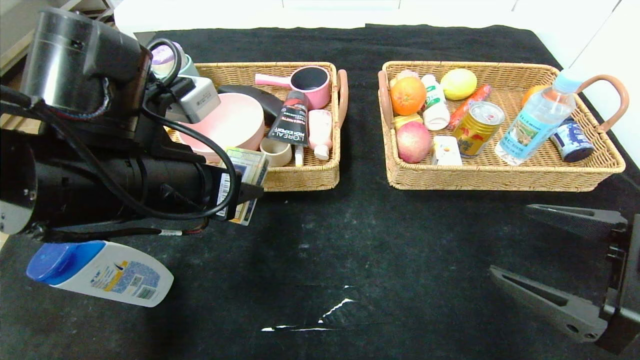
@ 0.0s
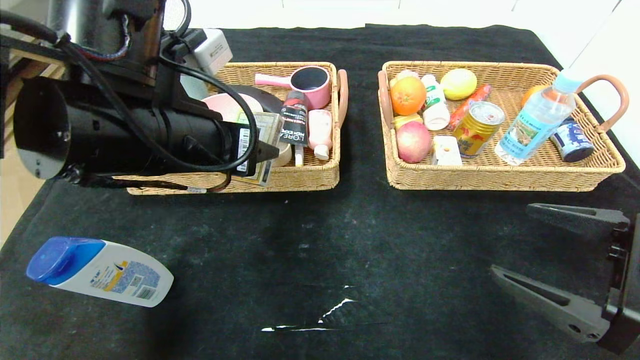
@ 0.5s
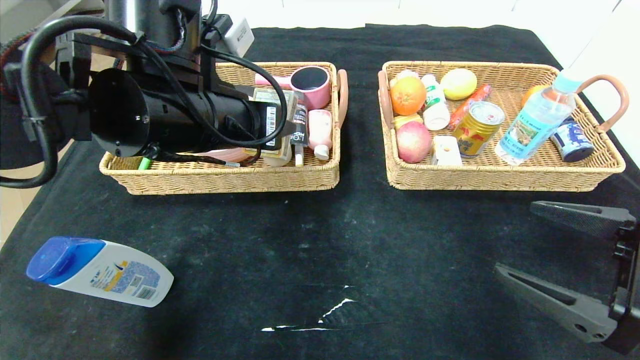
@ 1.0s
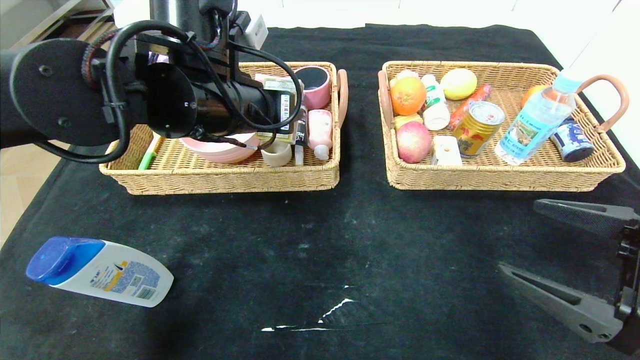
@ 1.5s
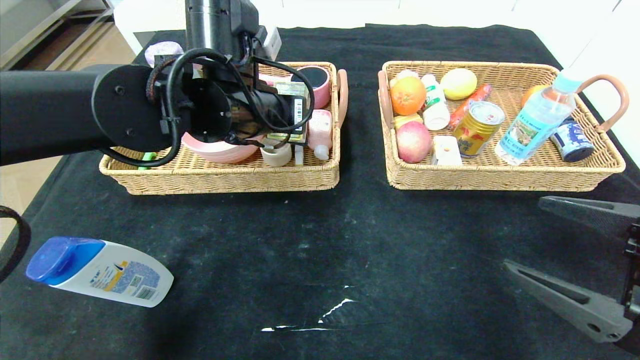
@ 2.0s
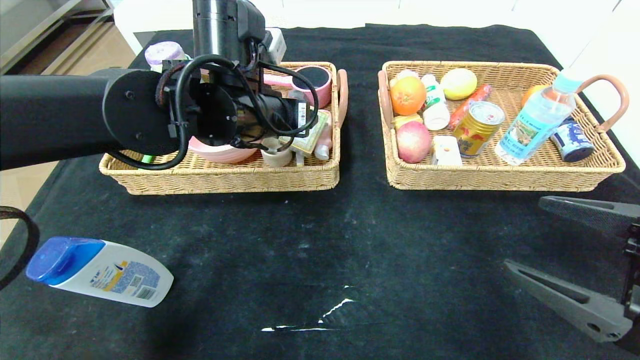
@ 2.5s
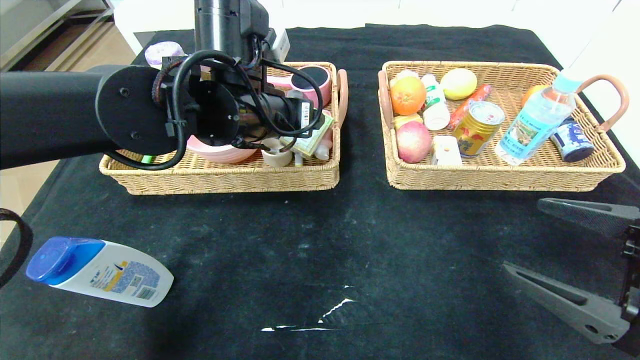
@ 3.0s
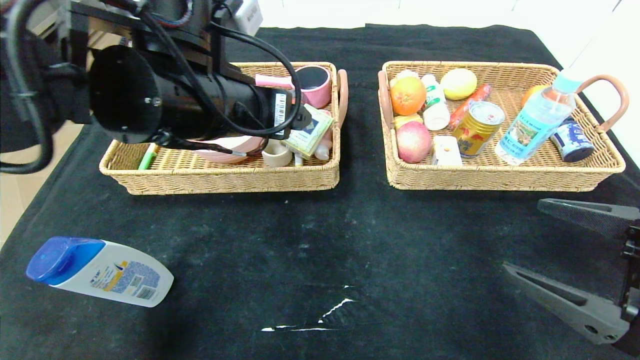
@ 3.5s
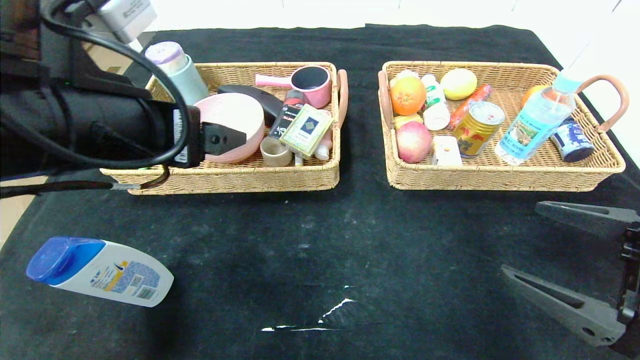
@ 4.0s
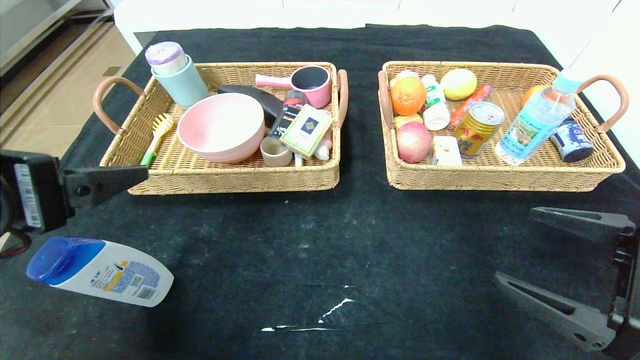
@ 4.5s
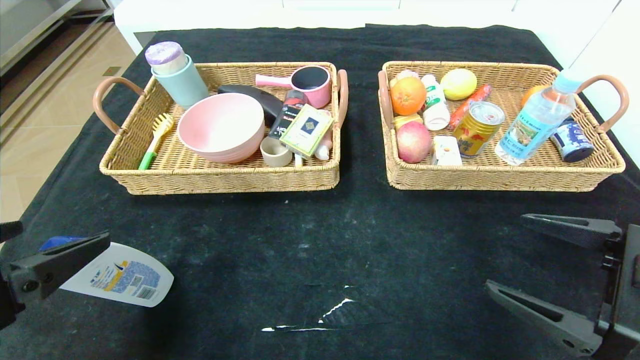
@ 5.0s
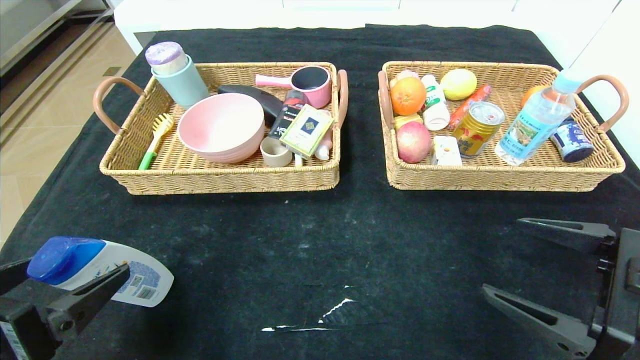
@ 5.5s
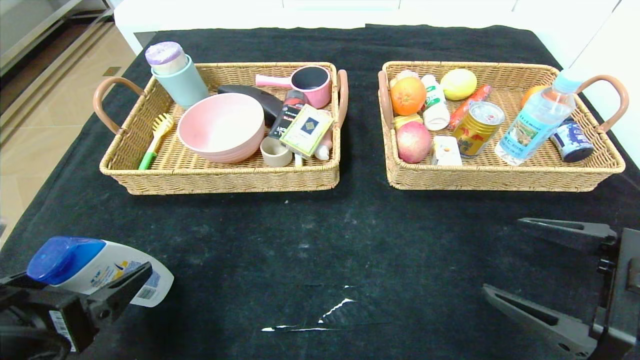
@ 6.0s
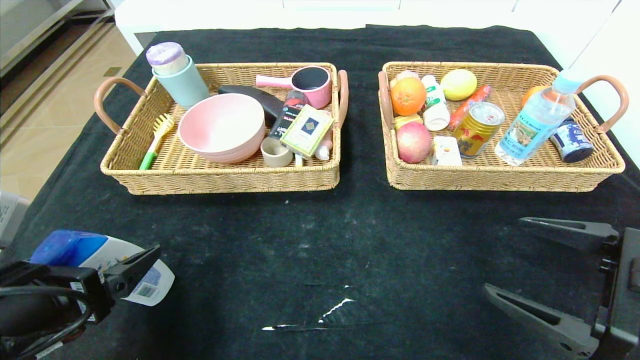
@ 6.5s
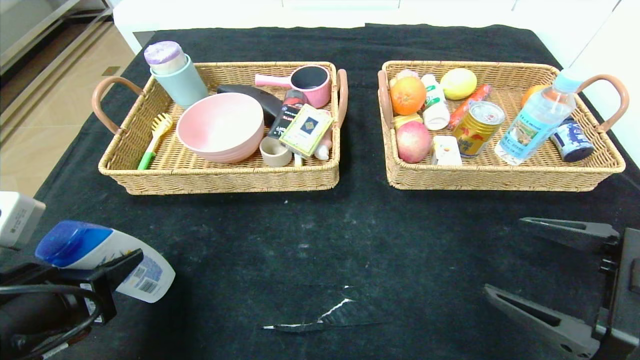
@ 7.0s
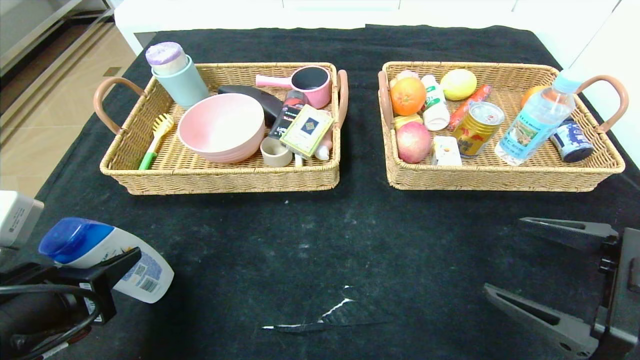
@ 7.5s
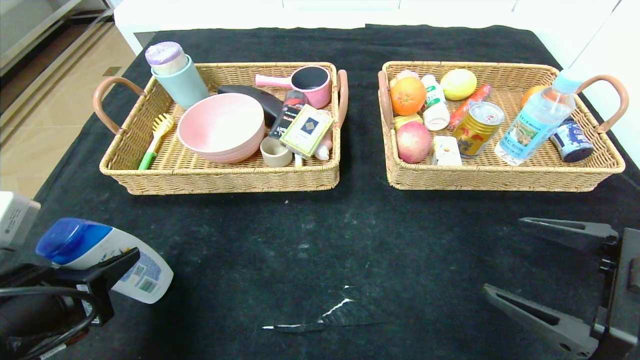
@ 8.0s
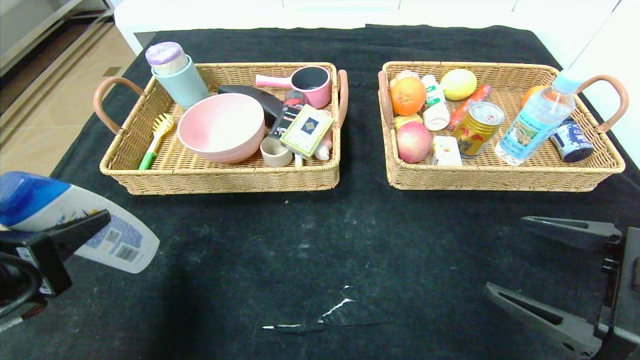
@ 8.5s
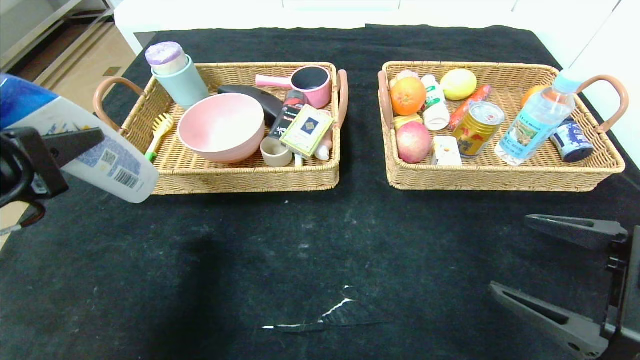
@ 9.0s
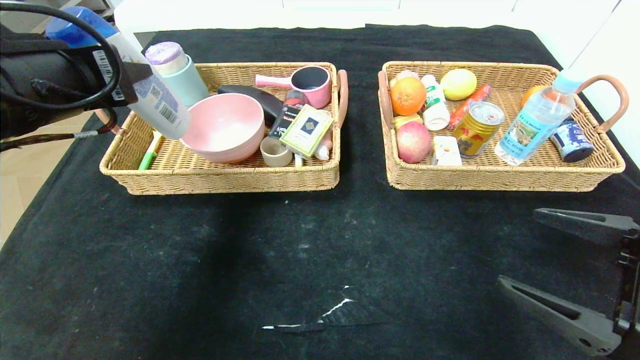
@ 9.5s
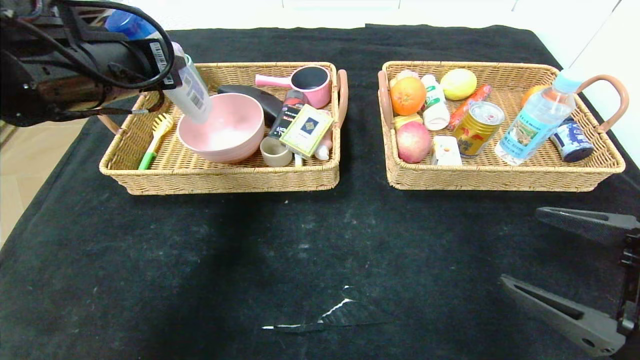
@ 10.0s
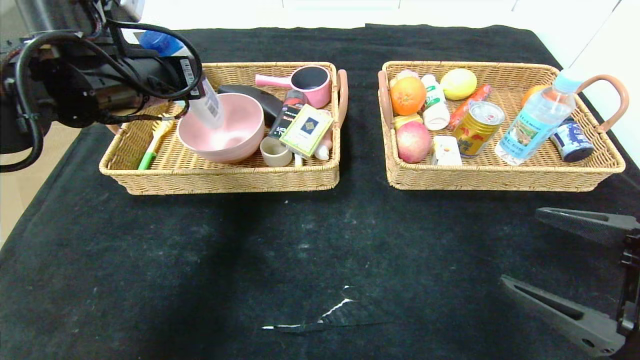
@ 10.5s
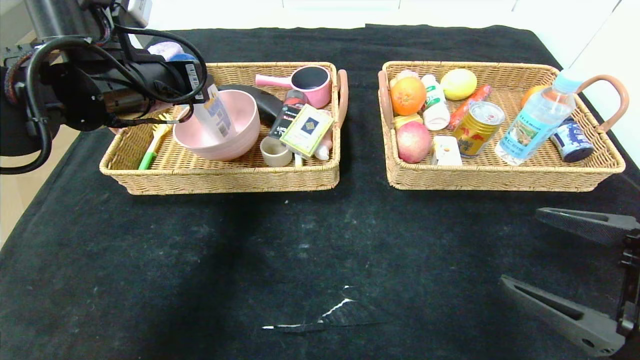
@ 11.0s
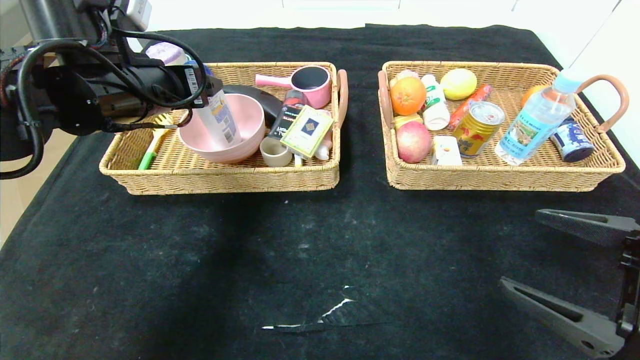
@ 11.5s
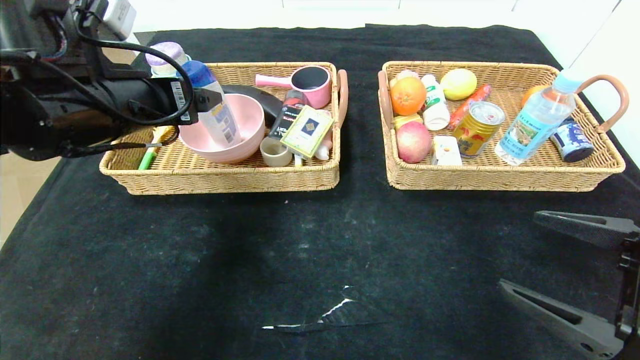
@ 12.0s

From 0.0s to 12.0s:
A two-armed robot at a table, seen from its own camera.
Step, from 0.0s to 4.5s: Pick up the playing cards and put it in the left basket.
From 0.0s to 2.0s: The left gripper goes roughly 15 cm forward and to the right.
From 2.0s to 4.0s: The left gripper travels backward and to the left by approximately 15 cm, and opens.
From 4.0s to 6.0s: The left gripper travels downward, backward and to the left by approximately 20 cm.
From 6.0s to 8.0s: The left gripper closes its fingers.
From 8.0s to 10.0s: The left gripper travels forward and upward by approximately 20 cm.
From 10.0s to 12.0s: The left gripper opens.

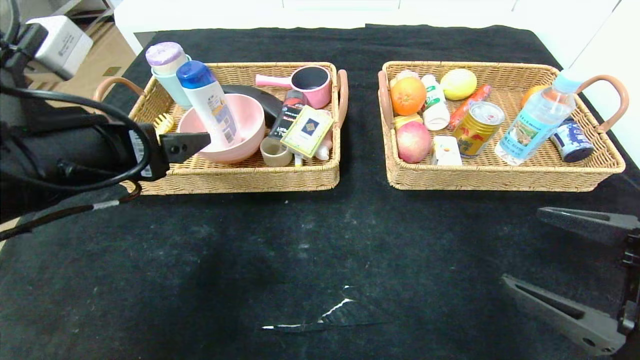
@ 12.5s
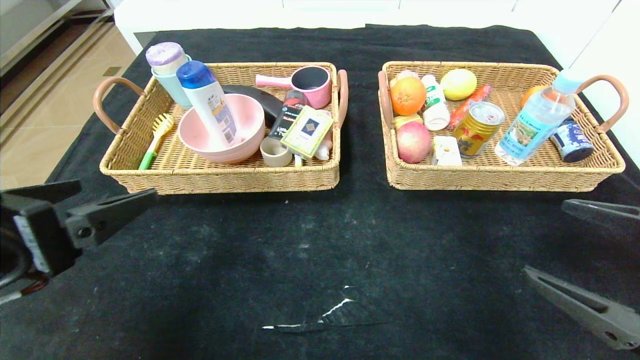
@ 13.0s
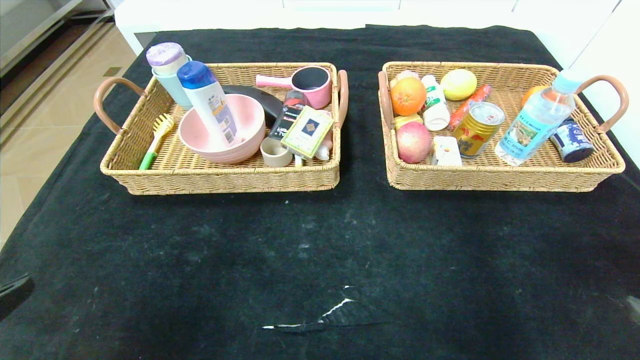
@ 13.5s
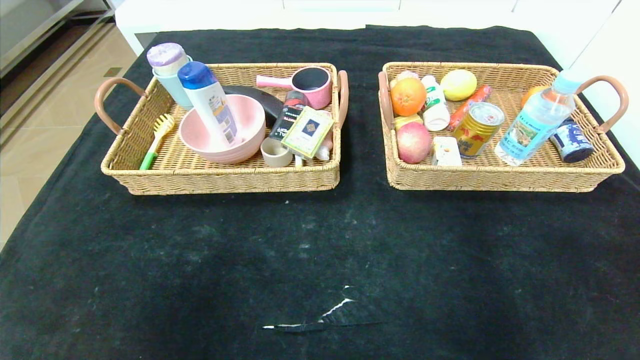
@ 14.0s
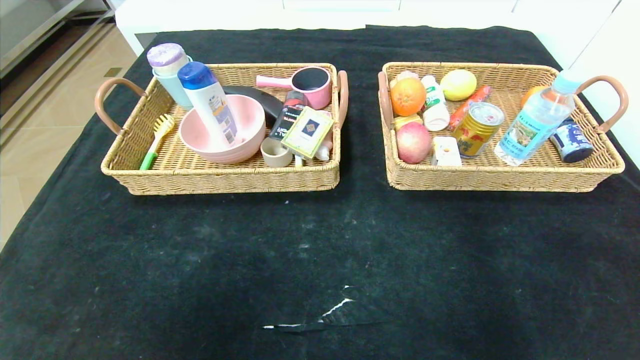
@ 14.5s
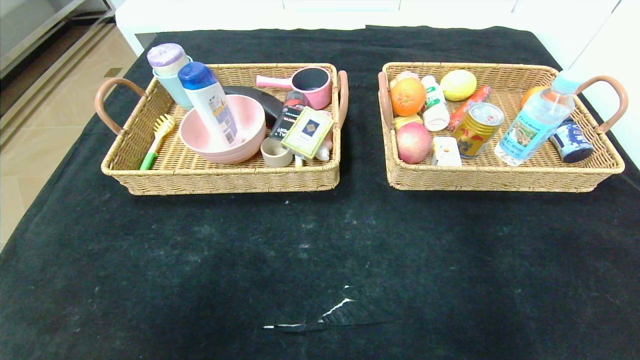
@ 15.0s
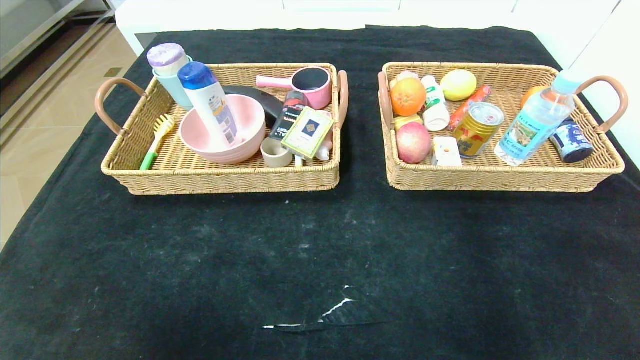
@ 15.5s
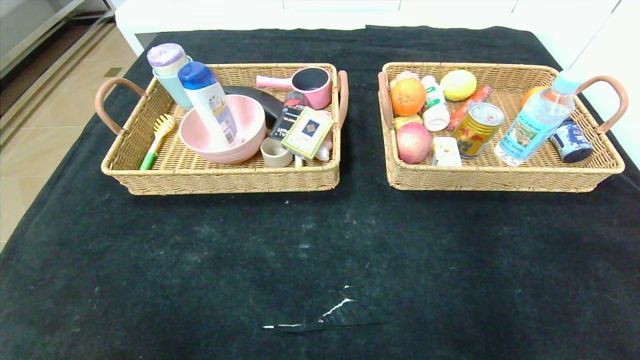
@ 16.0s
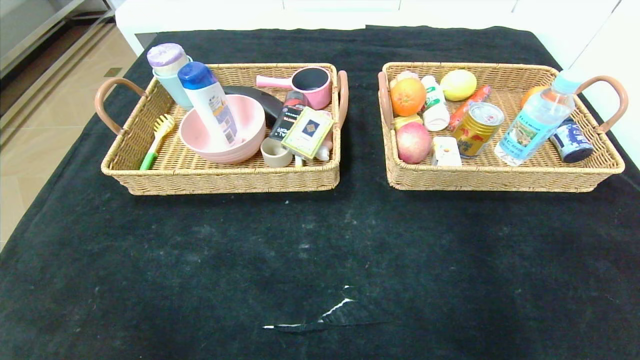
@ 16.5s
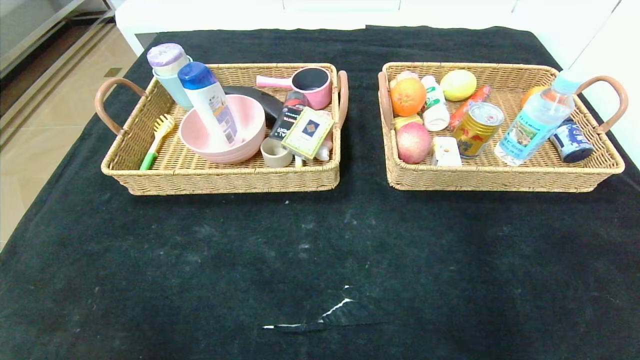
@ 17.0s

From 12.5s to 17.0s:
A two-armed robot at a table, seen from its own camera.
From 12.5s to 14.5s: The right gripper heads backward and to the right, covering about 20 cm. The left gripper goes some 25 cm backward.

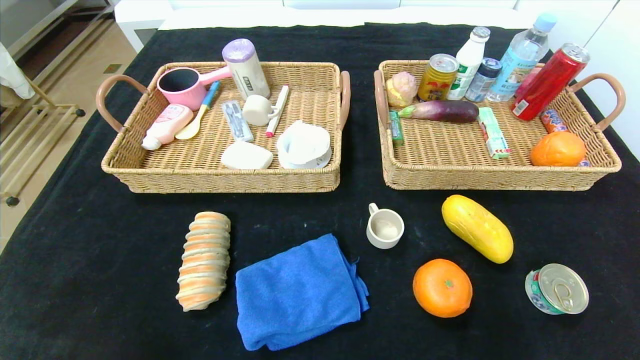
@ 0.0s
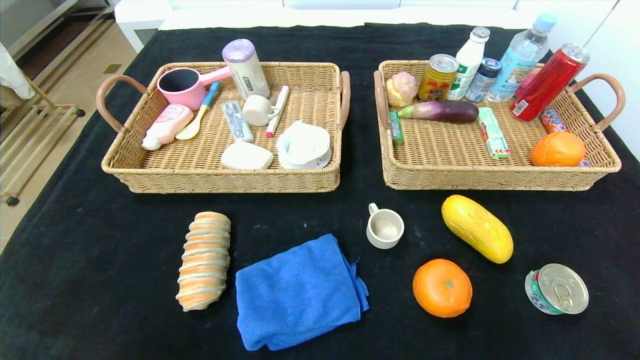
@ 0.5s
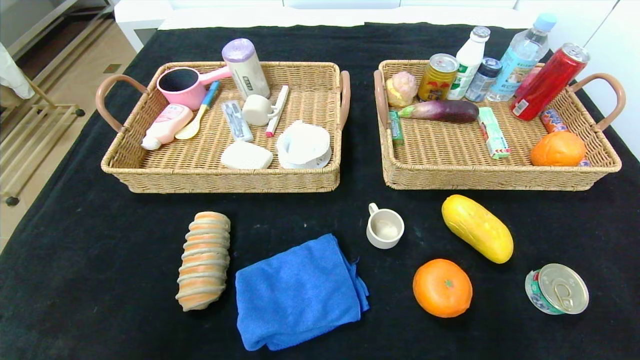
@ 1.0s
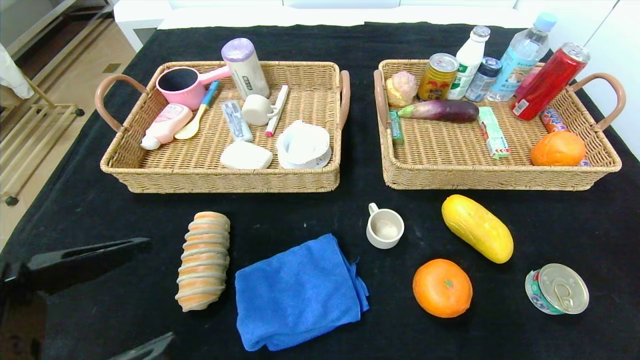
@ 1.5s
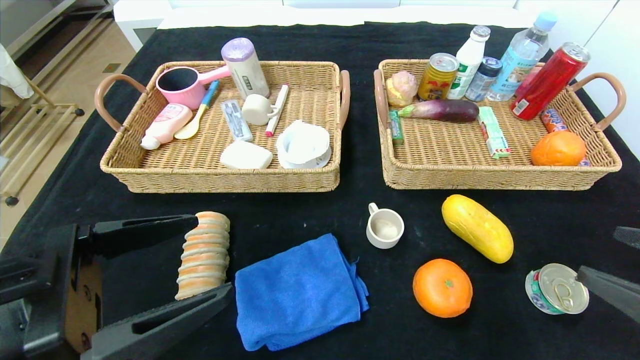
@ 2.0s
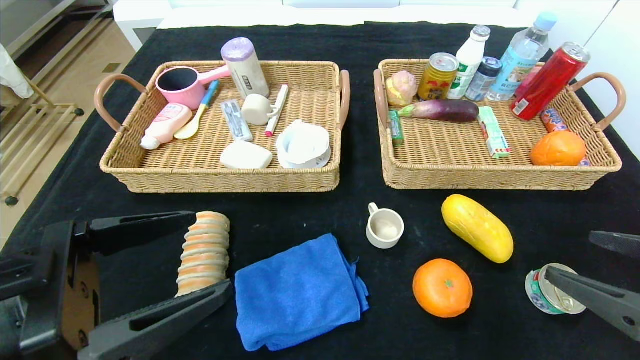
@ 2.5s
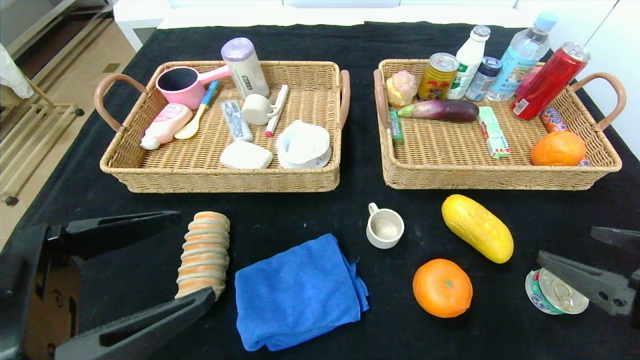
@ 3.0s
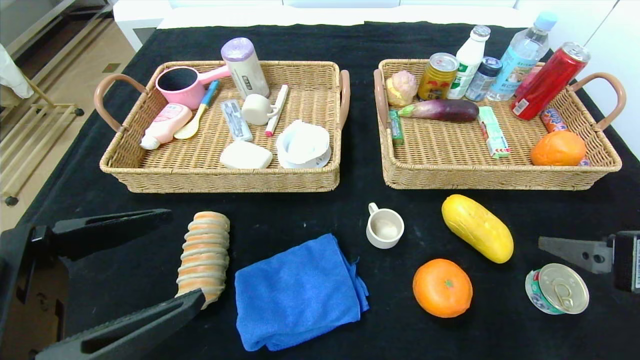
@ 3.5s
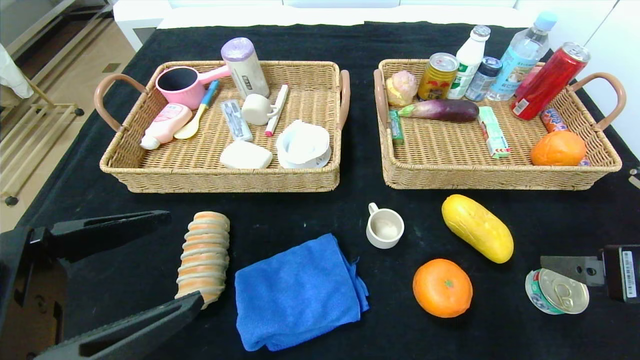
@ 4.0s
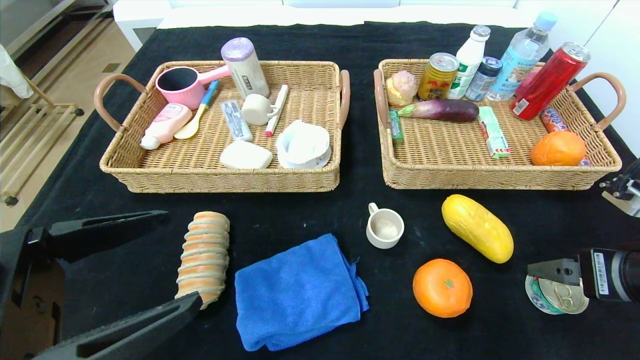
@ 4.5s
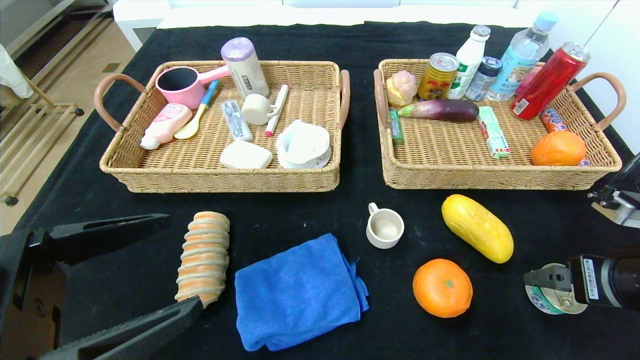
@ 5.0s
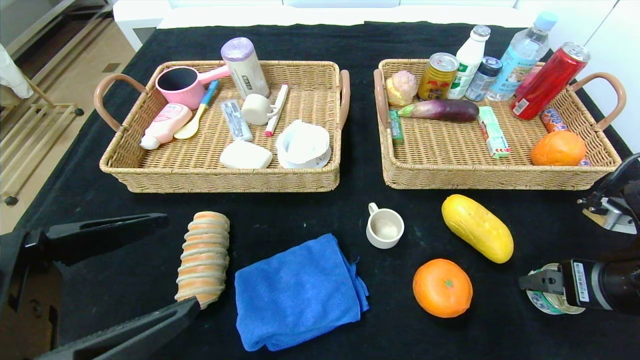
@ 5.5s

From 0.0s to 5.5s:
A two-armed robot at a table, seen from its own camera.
From 0.0s to 2.0s: The left gripper shifts about 25 cm upward, forward and to the right. The right gripper moves upward and forward, some 20 cm.
From 2.0s to 3.5s: The right gripper is displaced forward by approximately 5 cm.
From 3.5s to 5.5s: The right gripper moves about 5 cm.
